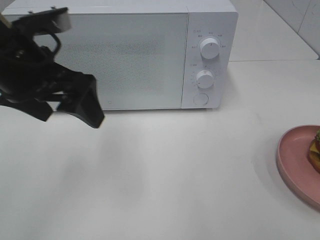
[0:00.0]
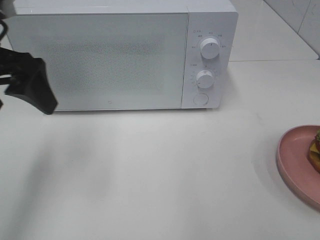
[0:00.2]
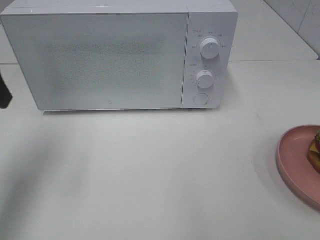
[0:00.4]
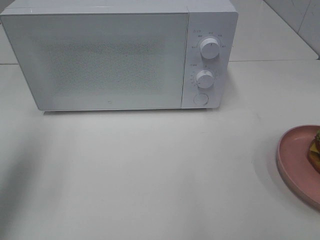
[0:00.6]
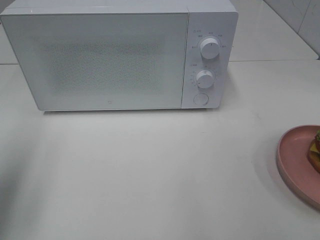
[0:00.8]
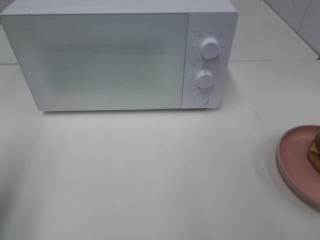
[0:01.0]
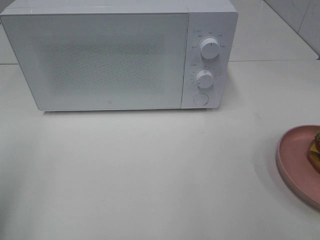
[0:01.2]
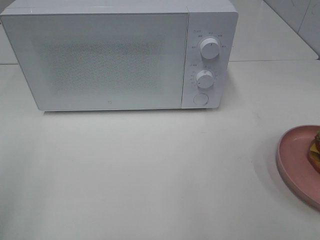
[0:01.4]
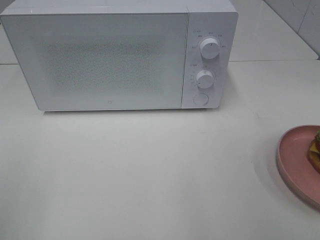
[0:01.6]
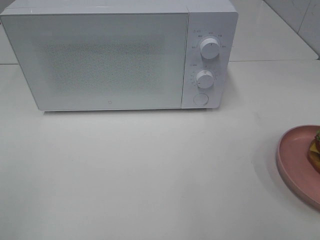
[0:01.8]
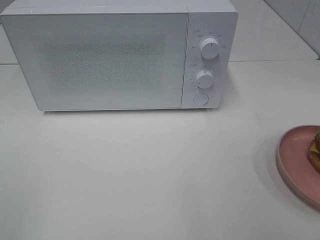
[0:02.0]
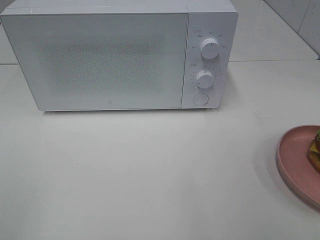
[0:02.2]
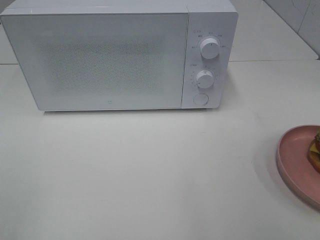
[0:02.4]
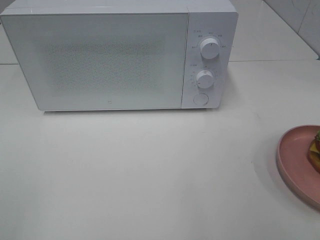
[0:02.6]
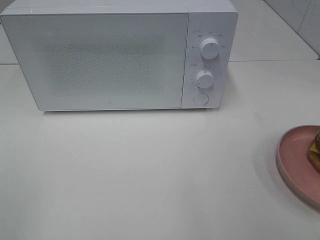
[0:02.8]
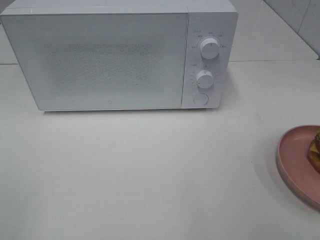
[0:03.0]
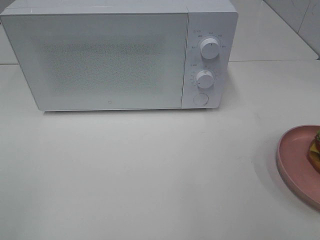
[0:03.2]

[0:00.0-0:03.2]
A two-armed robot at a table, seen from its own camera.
Task of the whole recording: Heat the burger.
0:00.0 to 0:01.6: The left gripper travels backward and to the left by some 25 cm.

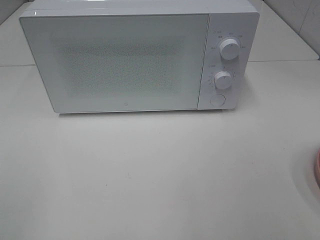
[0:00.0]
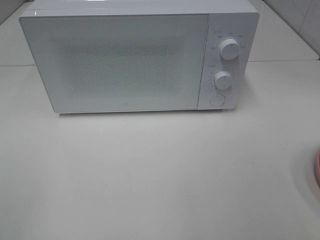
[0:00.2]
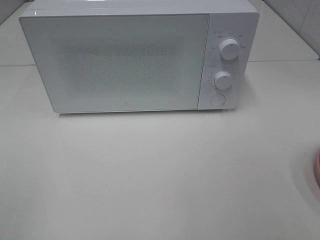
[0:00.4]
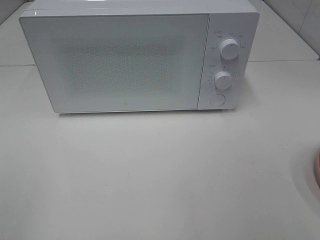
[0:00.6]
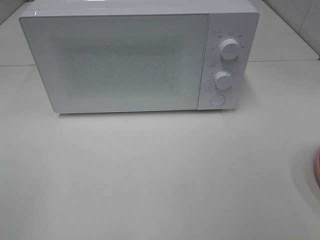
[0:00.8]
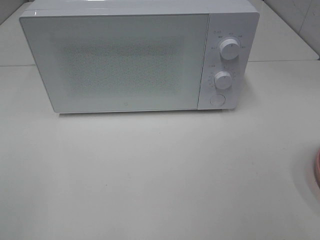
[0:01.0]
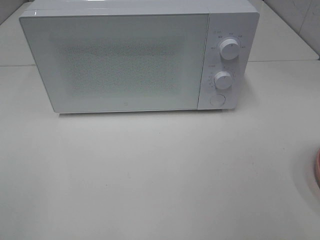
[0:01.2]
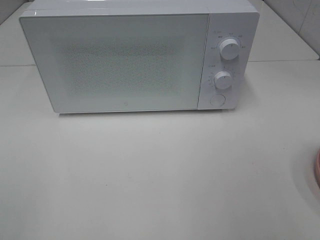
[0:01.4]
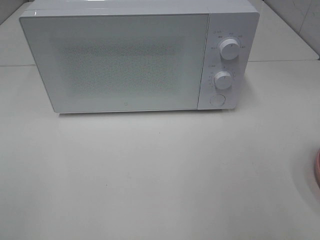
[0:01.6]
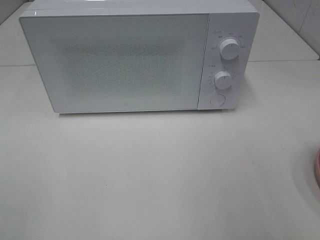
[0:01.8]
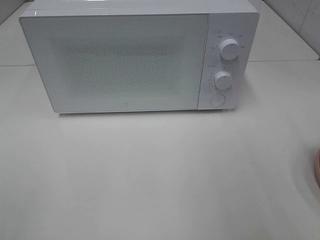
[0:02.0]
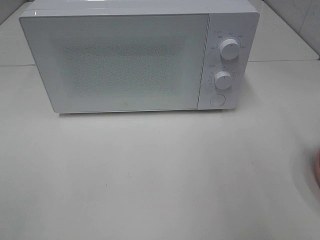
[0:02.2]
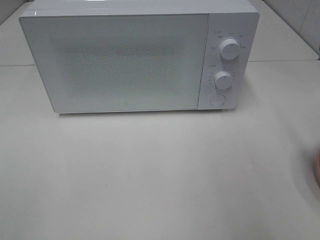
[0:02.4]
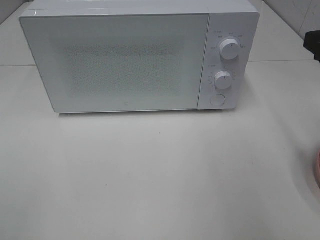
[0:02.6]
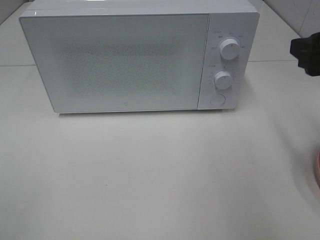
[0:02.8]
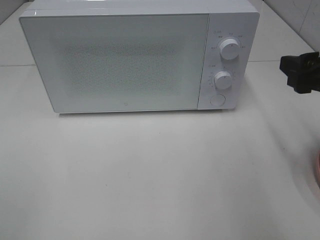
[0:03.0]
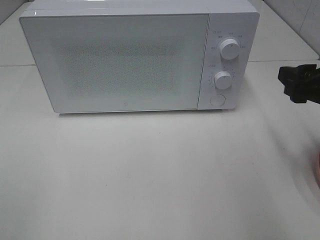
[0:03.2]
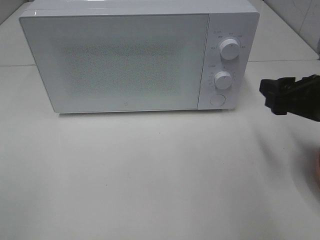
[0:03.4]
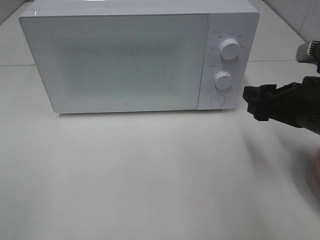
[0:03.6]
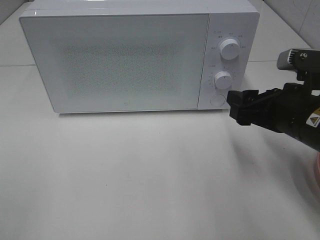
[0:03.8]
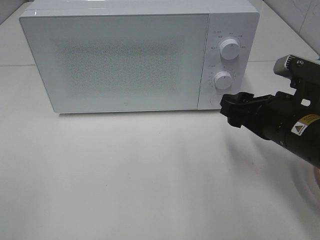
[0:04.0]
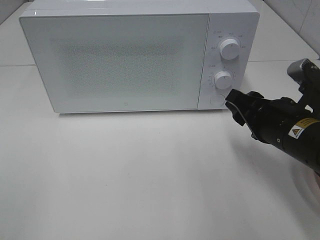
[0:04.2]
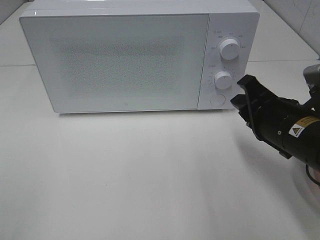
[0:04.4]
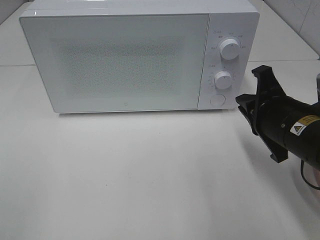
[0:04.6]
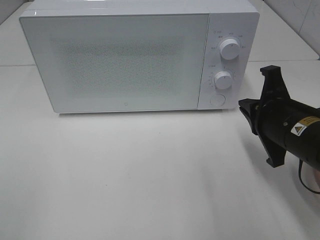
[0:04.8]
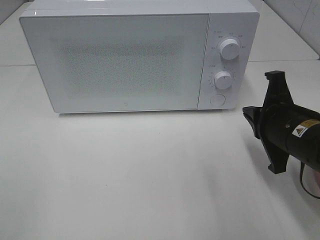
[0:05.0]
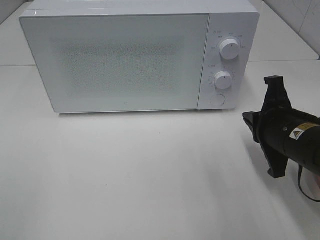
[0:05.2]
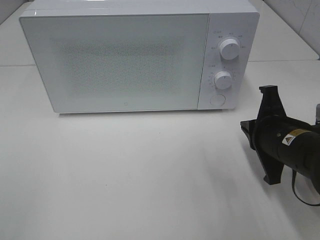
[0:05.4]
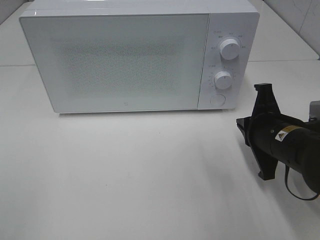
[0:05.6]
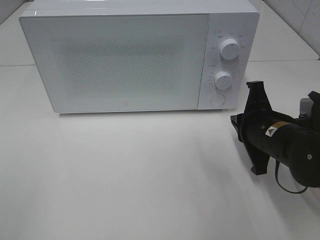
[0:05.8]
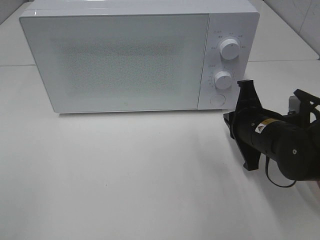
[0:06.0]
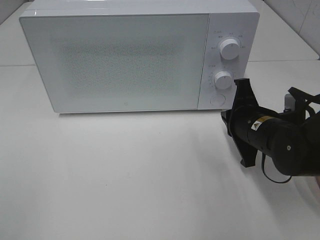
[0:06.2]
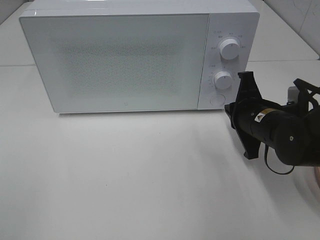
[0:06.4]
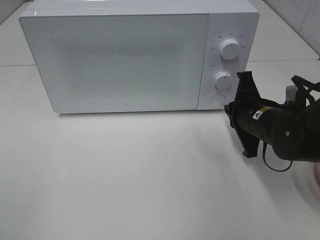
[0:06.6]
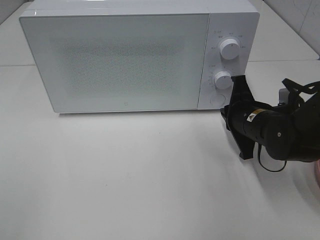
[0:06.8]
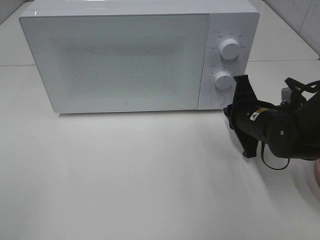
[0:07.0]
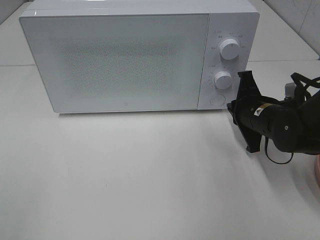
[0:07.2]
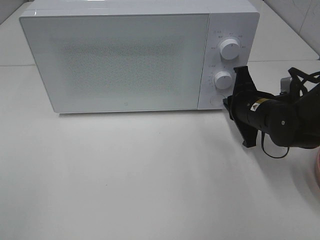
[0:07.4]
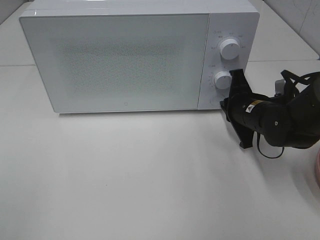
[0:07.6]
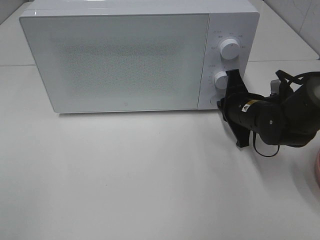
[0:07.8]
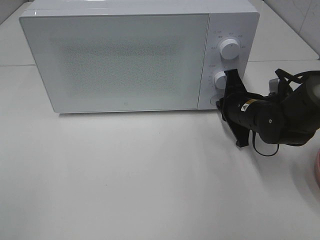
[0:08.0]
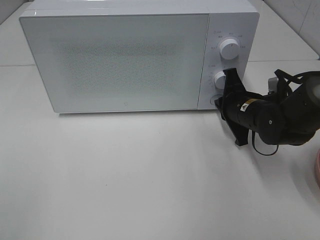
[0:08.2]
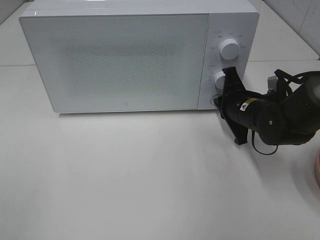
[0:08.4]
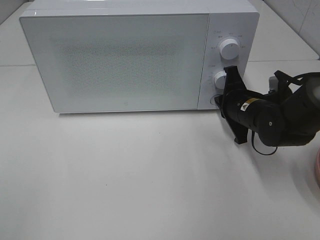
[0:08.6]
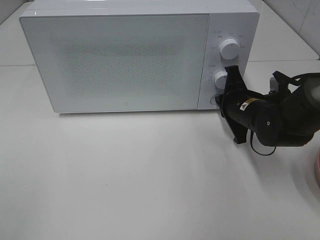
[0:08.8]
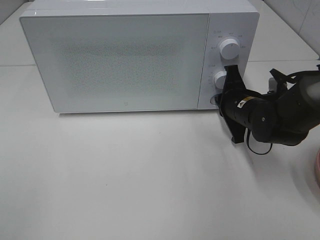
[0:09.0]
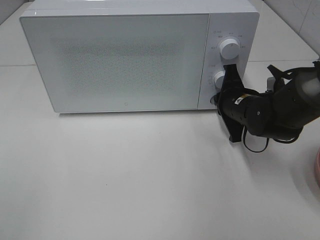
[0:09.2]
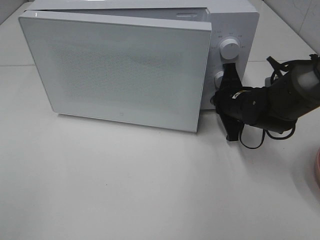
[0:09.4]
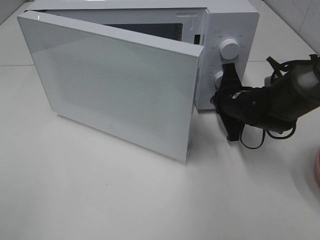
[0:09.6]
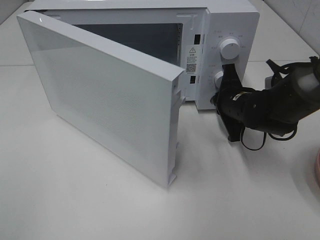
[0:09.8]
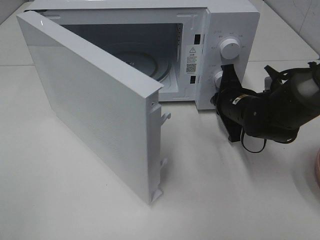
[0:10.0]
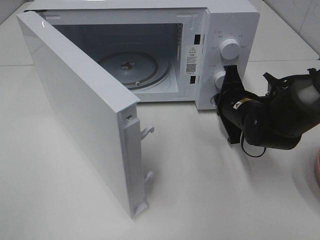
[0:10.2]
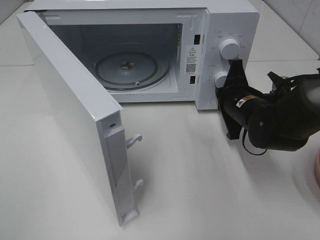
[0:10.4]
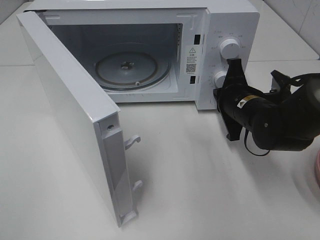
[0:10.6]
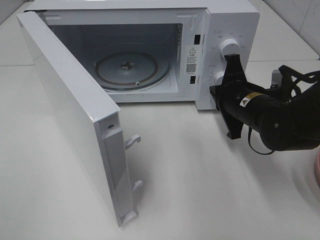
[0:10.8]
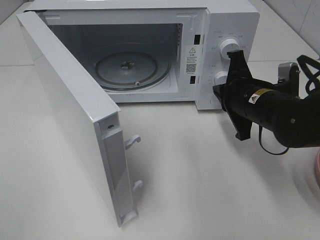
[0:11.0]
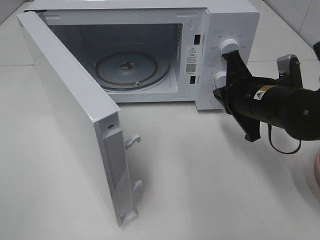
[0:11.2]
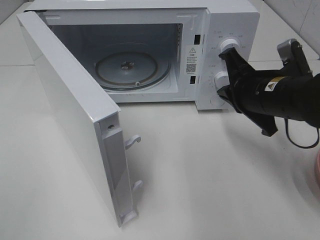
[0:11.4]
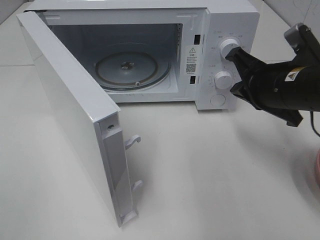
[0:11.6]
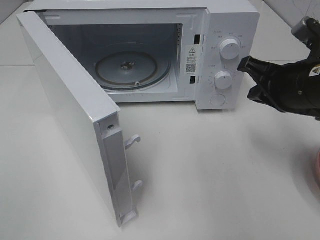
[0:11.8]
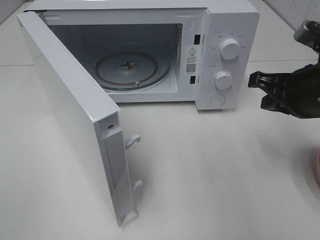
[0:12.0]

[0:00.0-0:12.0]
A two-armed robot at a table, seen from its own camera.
Task of the whole recording: Heat the burger.
Step, 0:00.0 to 0:10.4: Right hand: press the switch.
0:01.6 to 0:03.0: The right gripper goes roughly 15 cm forward and downward.
0:03.0 to 0:04.4: The right gripper shifts some 10 cm downward and to the left, and closes its fingers.
0:04.4 to 0:06.0: The right gripper moves approximately 5 cm.
0:06.0 to 0:07.6: The right gripper goes approximately 5 cm forward.
0:07.6 to 0:09.0: The grippers stay close to where they were, moving slightly.
0:10.4 to 0:12.0: The right gripper travels upward, backward and to the right by roughly 15 cm.

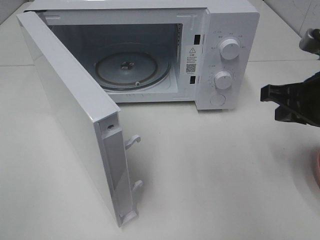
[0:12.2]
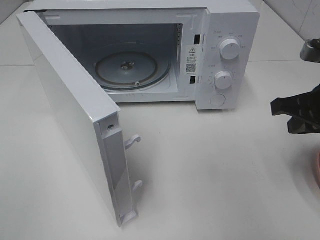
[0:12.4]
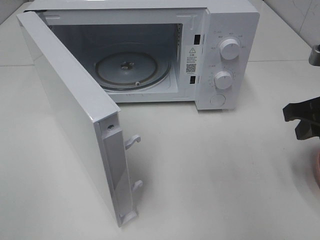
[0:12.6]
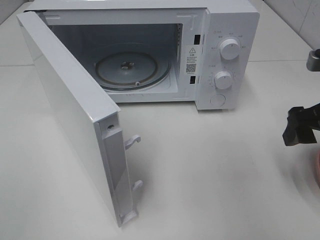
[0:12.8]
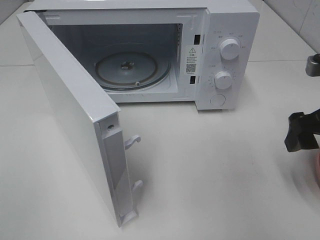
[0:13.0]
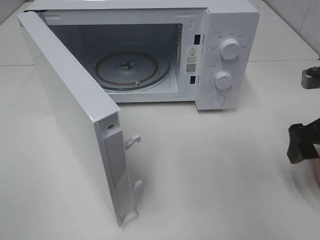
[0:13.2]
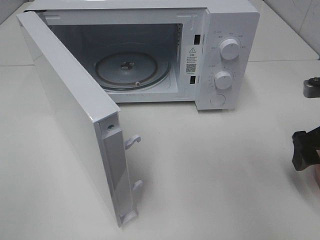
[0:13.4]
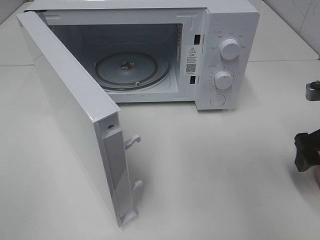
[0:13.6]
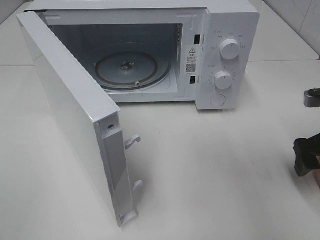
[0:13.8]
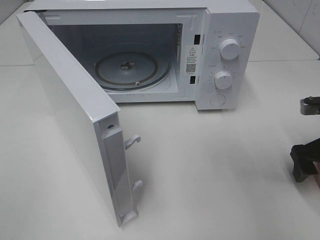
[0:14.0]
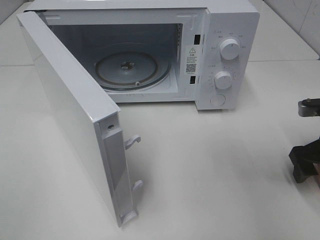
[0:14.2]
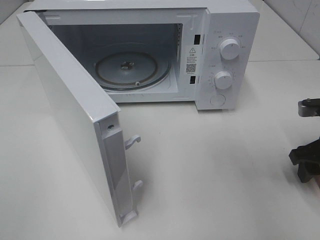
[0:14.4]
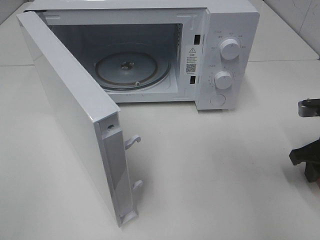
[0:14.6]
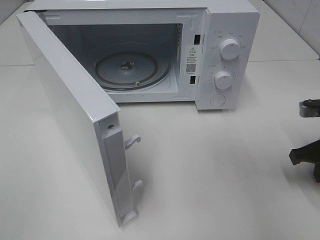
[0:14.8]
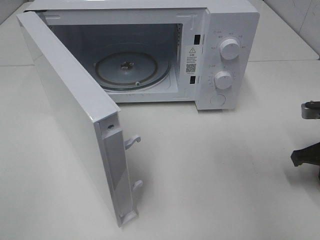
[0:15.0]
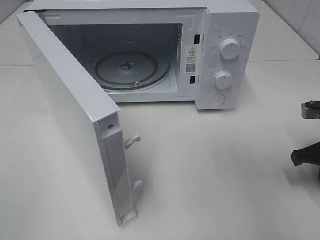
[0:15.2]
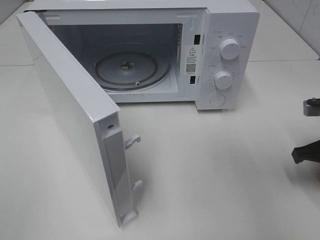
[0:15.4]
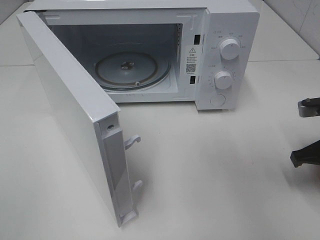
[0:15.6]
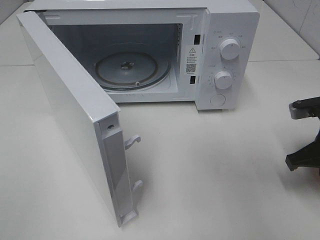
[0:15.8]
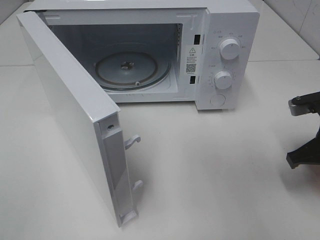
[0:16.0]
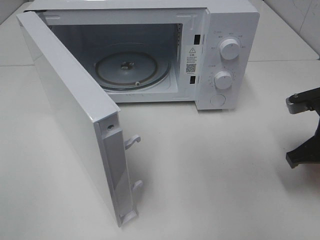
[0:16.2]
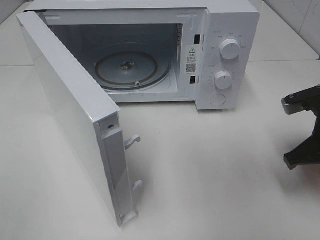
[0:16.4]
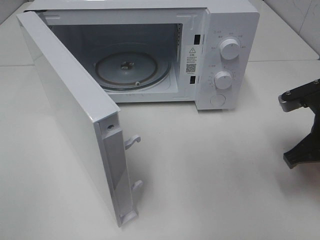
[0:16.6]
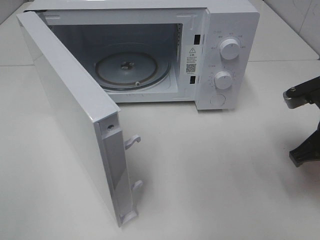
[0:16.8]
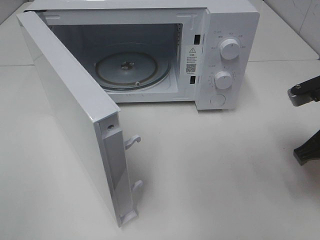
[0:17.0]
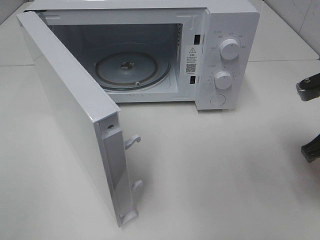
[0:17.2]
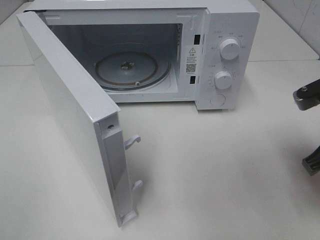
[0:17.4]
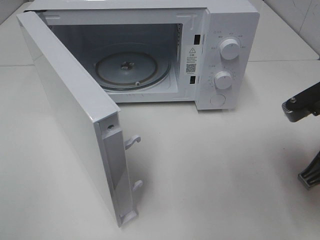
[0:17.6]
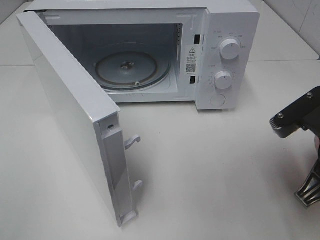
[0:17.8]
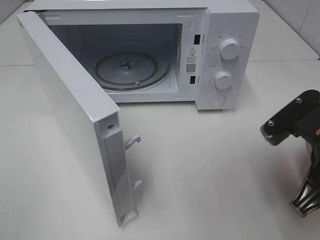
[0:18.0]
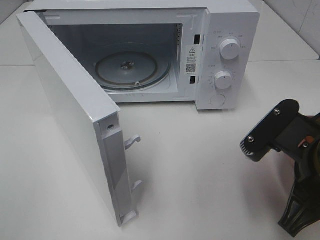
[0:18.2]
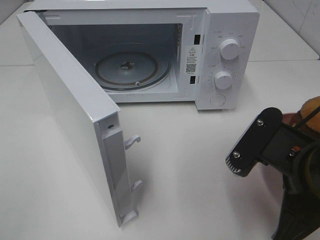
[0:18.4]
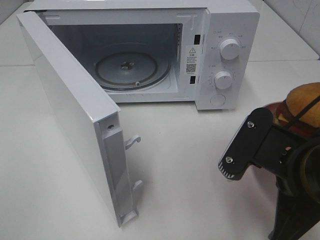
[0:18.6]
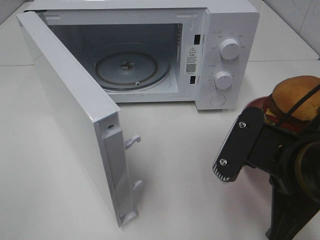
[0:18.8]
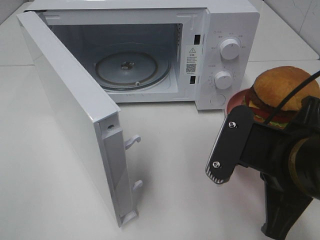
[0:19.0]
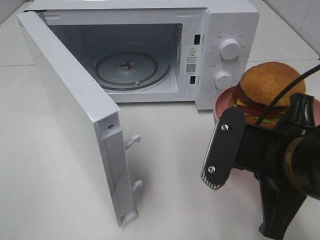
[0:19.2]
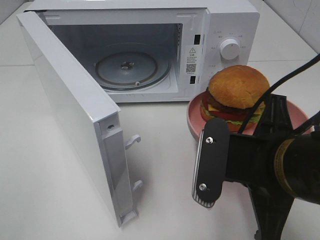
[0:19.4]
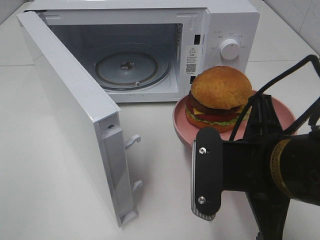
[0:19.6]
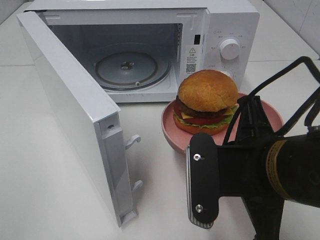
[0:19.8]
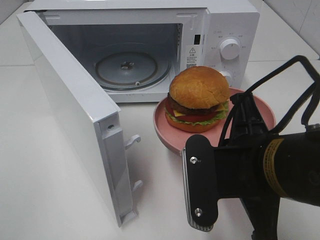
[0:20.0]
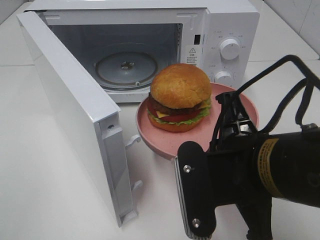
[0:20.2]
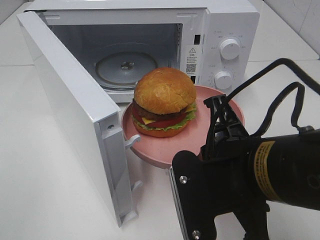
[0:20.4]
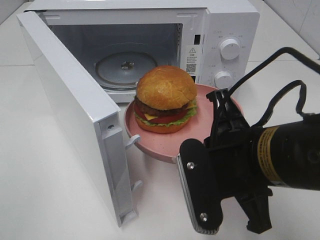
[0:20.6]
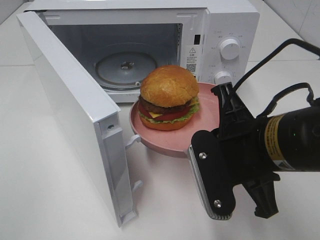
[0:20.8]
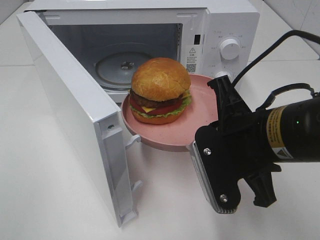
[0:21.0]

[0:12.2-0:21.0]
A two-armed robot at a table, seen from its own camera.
Task of the whole recording: Heat the burger.
Step, 0:12.2 to 0:15.0: Right hand: grab the plate with the hamburger.
0:12.2 to 0:13.6: The right gripper moves to the right, some 5 cm, and opens.
0:13.6 to 0:15.2: The right gripper closes its fingers.
0:15.2 to 0:16.6: The right gripper moves to the left, roughly 5 cm.
0:16.6 to 0:18.0: The right gripper heads backward and to the left, covering approximately 10 cm.
0:18.0 to 0:19.6: The right gripper heads to the left, covering about 10 cm.
